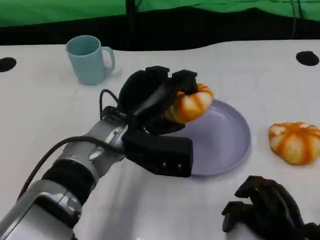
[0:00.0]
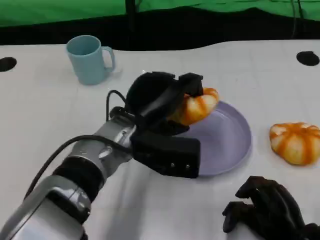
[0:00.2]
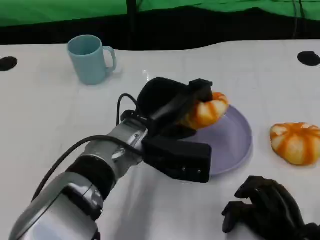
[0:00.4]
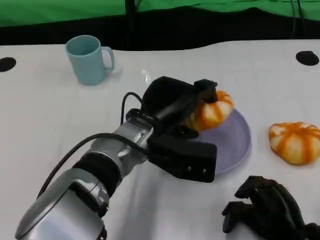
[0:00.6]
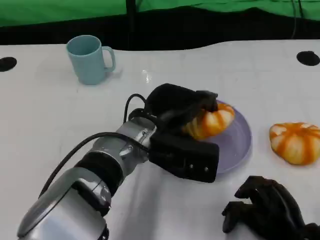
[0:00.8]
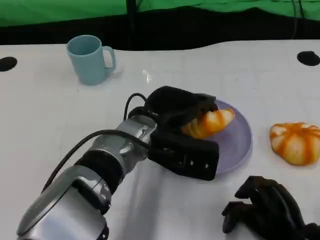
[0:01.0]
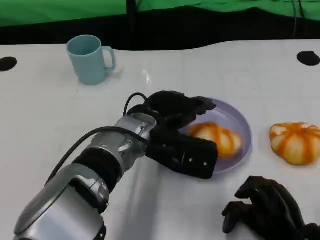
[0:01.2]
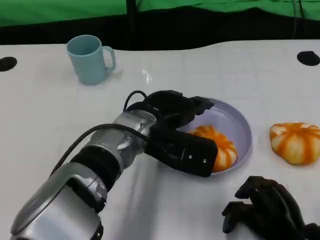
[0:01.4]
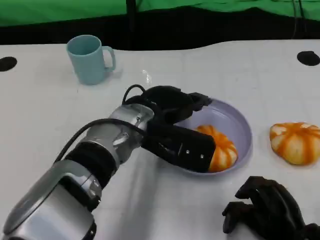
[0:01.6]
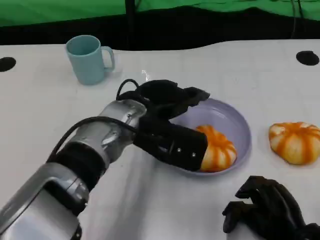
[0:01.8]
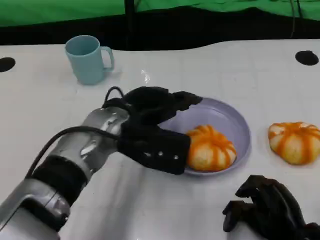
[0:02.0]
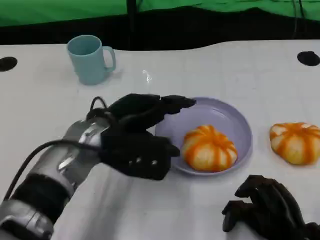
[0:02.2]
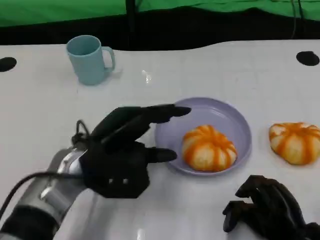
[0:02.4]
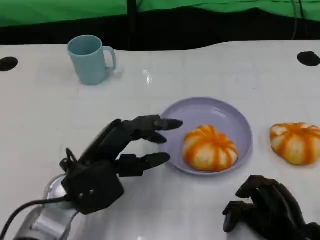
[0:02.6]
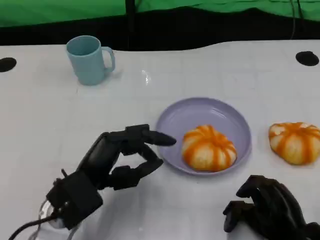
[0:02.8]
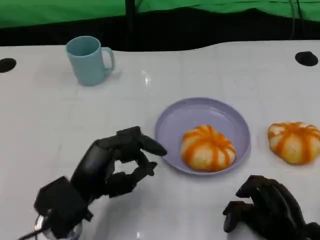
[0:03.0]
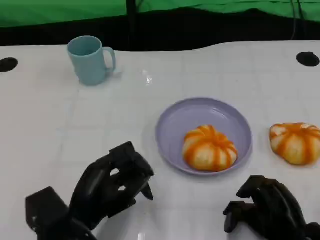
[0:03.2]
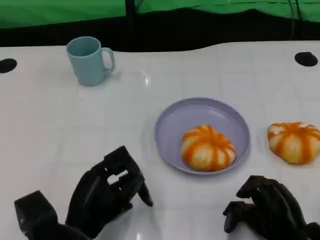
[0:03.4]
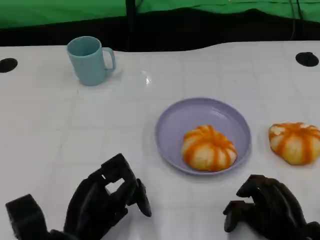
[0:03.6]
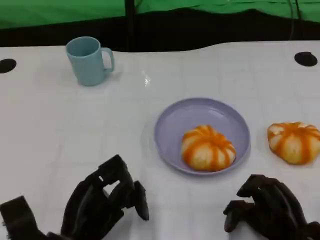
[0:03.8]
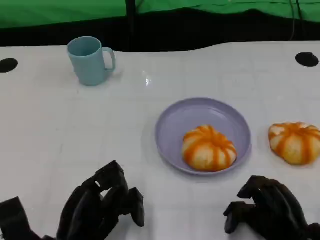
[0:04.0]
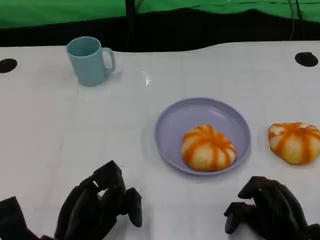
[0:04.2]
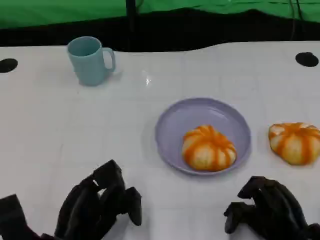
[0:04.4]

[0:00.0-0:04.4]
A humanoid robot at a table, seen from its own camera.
Task of the whole recording: Grasp the bread from the table and place it into the plate.
1.4 to 3.0 s: The left hand shifts about 15 cm to the left, backward and downward.
3.0 to 4.4 s: The left hand shifts by about 5 cm.

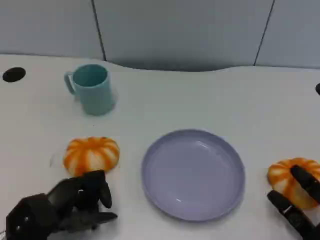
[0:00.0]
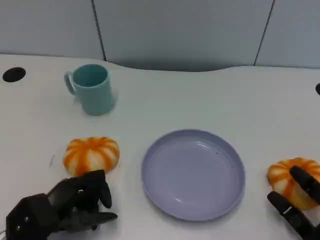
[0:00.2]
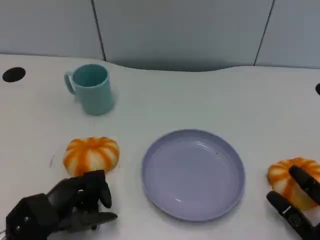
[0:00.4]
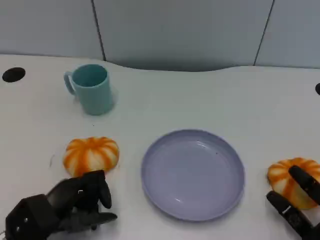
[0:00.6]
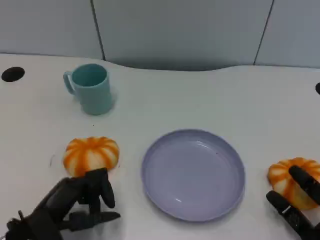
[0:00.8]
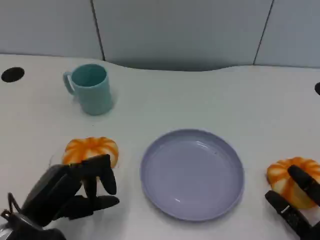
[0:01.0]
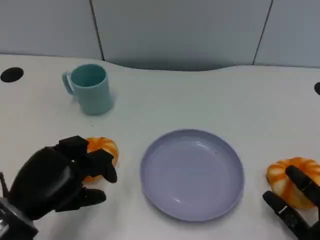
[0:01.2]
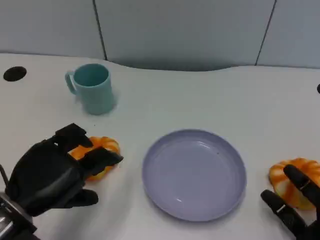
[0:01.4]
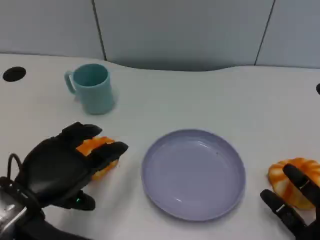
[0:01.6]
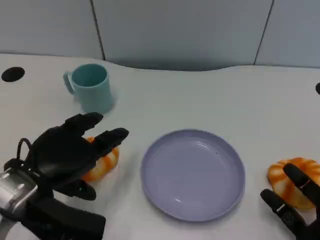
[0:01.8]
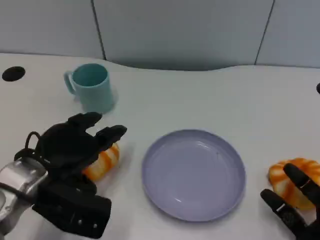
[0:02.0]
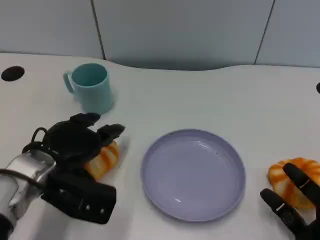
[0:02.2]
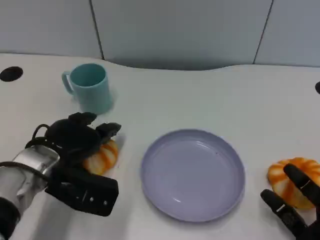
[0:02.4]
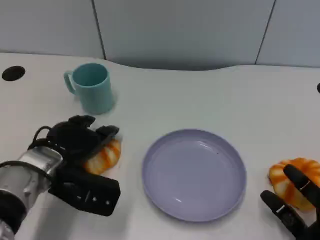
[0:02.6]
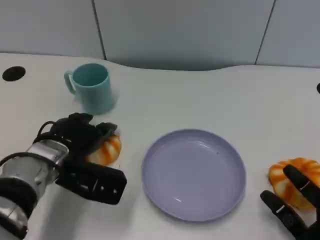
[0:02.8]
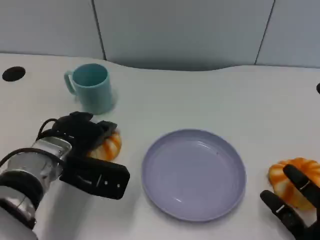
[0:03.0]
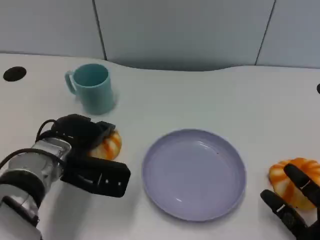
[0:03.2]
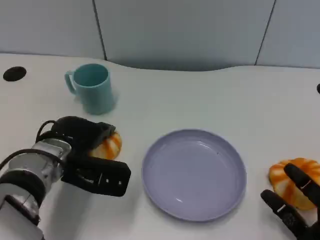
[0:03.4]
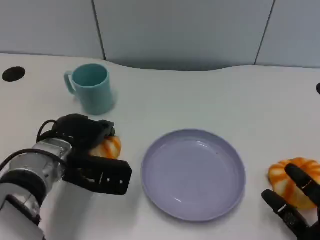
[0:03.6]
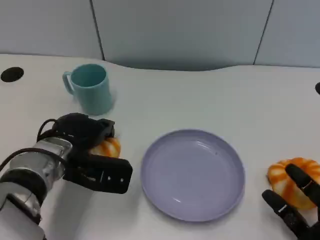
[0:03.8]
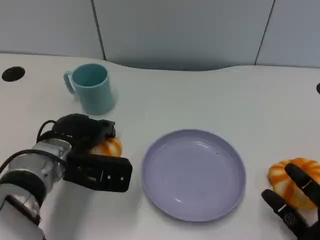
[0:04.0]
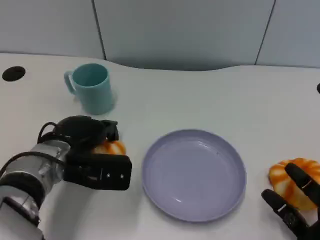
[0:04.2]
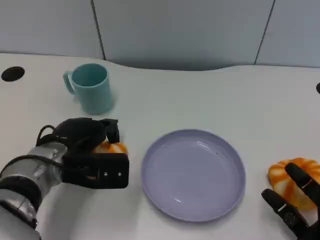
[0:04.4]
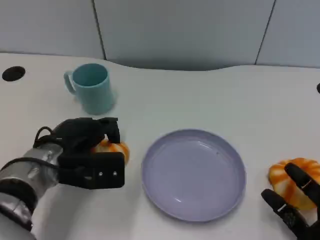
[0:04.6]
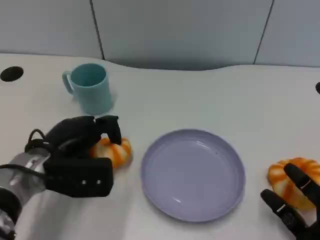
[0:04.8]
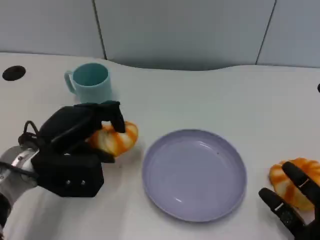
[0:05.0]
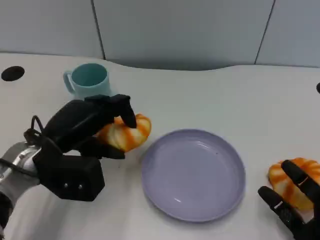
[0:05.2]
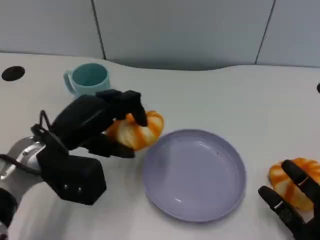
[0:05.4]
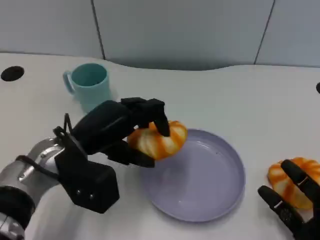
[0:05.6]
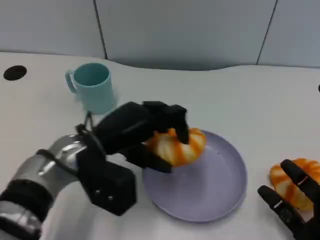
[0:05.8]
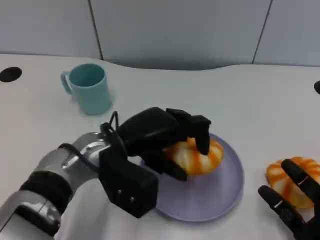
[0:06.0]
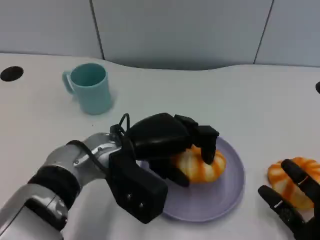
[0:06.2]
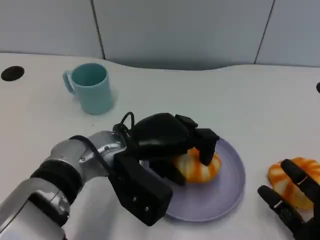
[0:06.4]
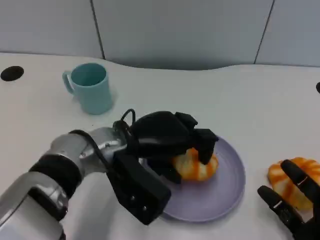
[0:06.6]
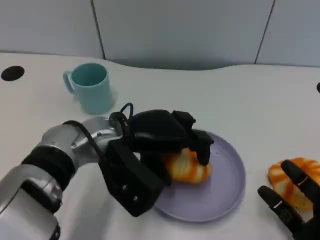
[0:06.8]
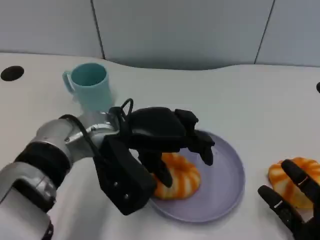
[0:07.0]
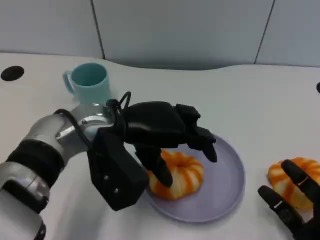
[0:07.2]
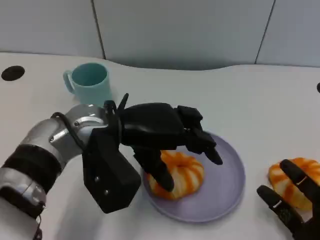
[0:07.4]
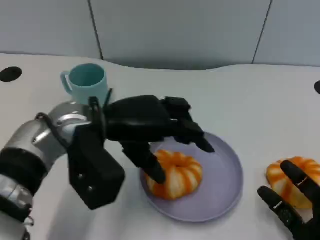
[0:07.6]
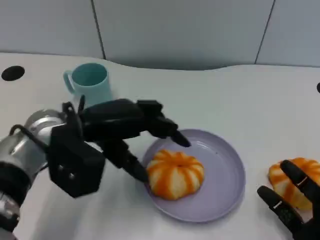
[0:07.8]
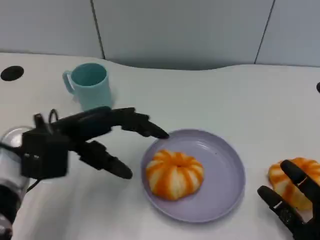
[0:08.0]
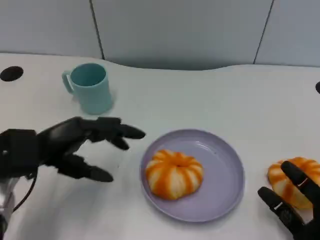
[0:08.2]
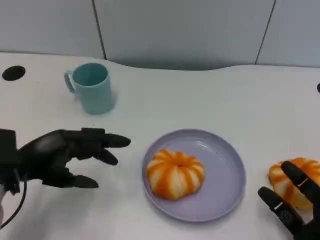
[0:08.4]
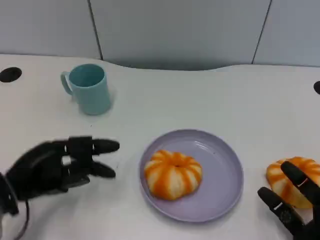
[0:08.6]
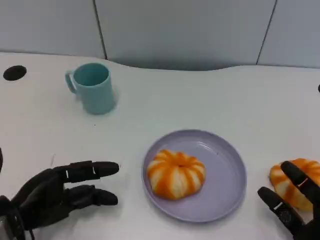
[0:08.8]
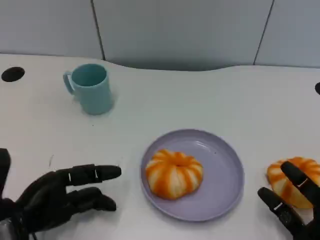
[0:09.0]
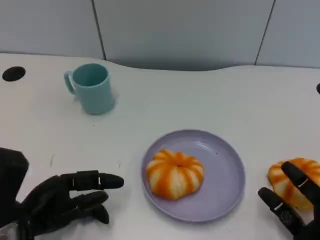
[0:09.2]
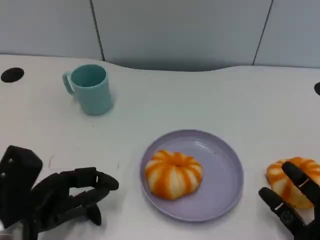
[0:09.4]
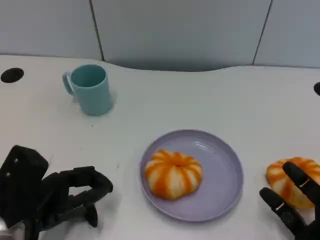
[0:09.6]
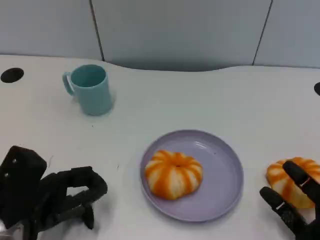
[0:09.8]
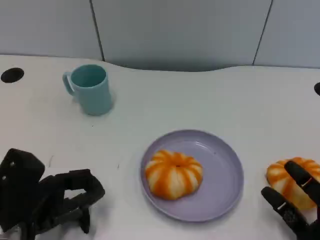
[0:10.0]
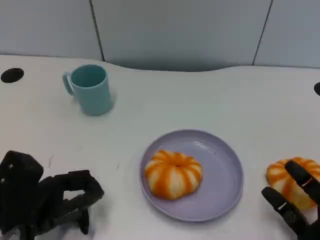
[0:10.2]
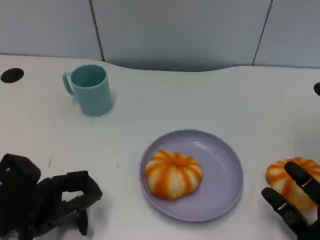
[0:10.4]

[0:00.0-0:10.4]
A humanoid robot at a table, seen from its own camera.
Task of the whole recording: Grasp the bread from the table and place it into the plate.
0.0 to 1.4 s: The left hand moves upward, roughly 10 cm.
1.4 to 3.0 s: The left hand travels forward and to the right by roughly 15 cm.
4.4 to 6.0 s: The left hand shifts roughly 10 cm to the right.
6.0 to 7.4 s: The left hand moves approximately 5 cm.
7.4 to 9.0 s: The left hand is displaced to the left, downward and backward by roughly 20 cm.

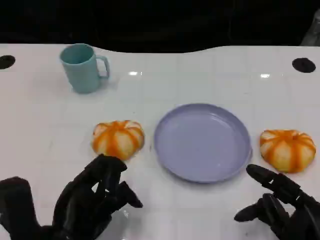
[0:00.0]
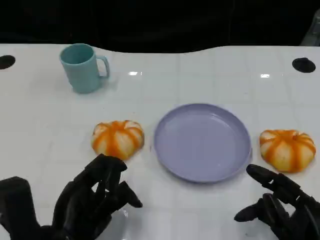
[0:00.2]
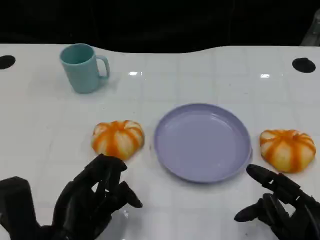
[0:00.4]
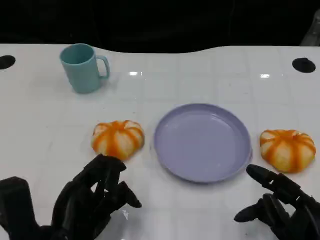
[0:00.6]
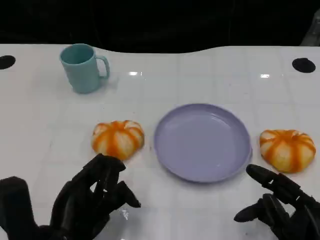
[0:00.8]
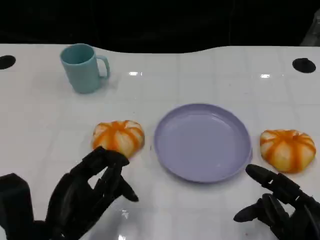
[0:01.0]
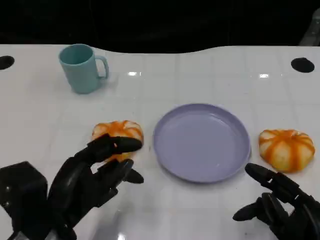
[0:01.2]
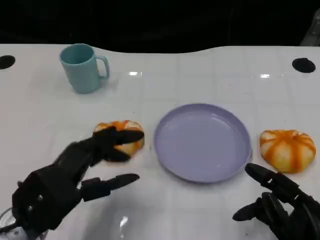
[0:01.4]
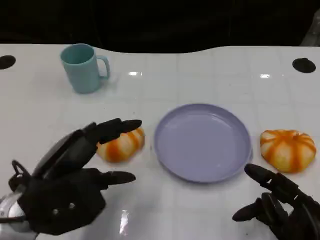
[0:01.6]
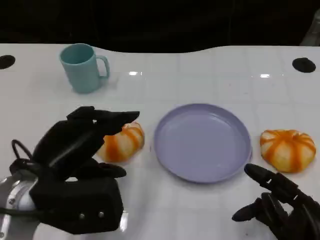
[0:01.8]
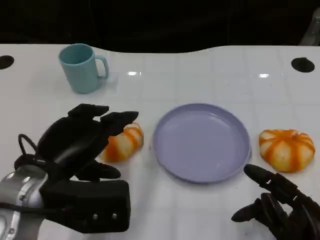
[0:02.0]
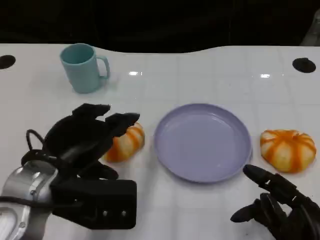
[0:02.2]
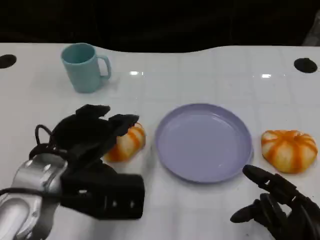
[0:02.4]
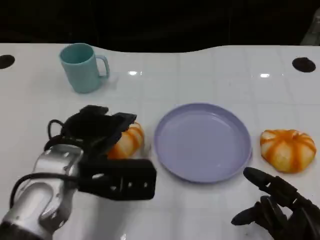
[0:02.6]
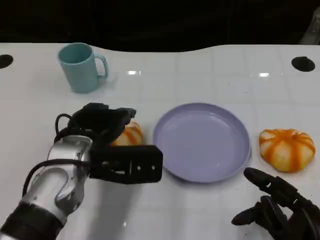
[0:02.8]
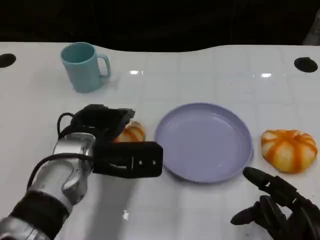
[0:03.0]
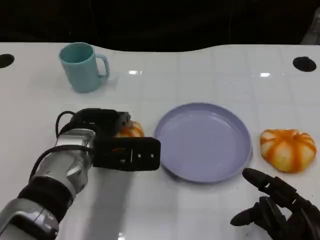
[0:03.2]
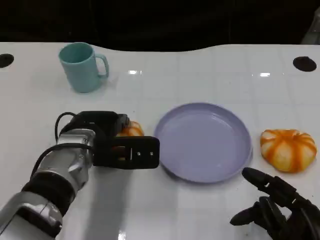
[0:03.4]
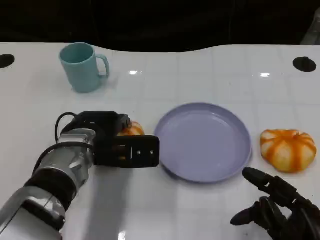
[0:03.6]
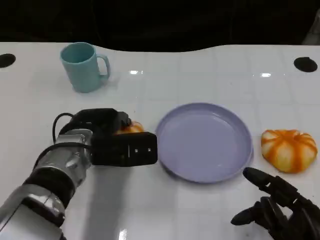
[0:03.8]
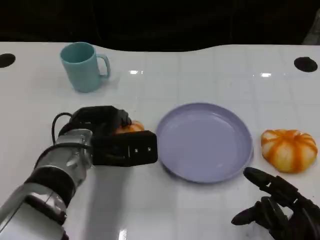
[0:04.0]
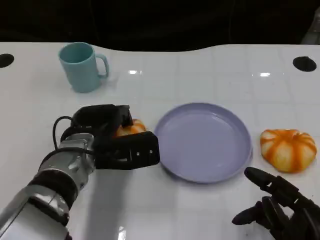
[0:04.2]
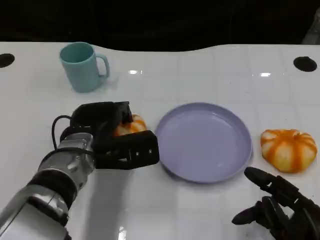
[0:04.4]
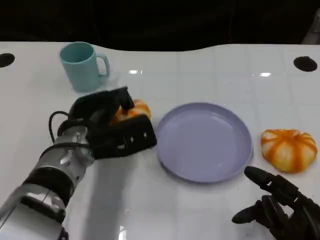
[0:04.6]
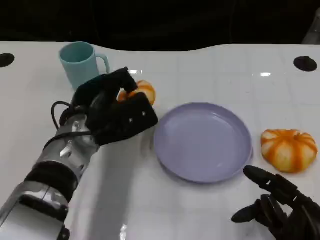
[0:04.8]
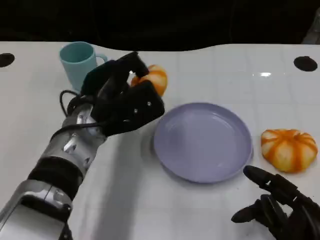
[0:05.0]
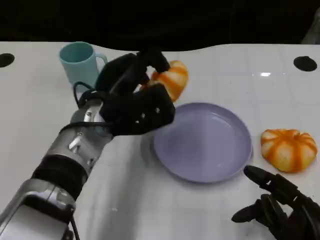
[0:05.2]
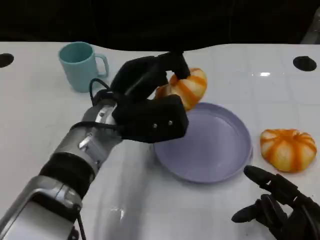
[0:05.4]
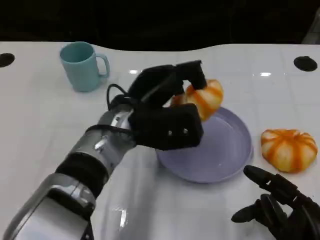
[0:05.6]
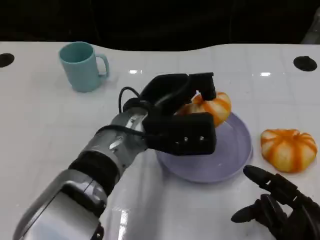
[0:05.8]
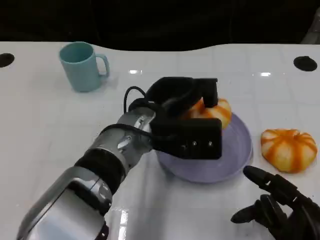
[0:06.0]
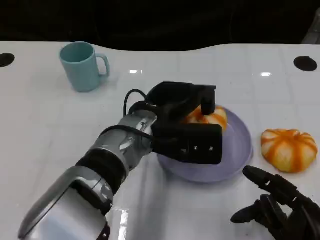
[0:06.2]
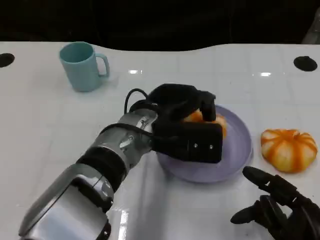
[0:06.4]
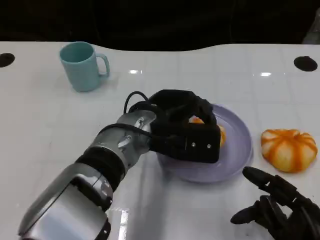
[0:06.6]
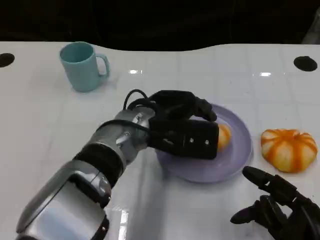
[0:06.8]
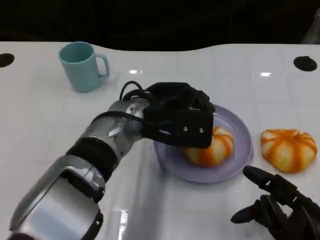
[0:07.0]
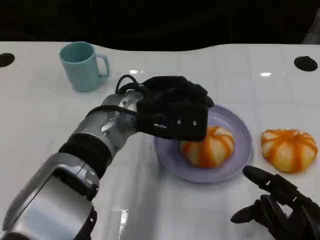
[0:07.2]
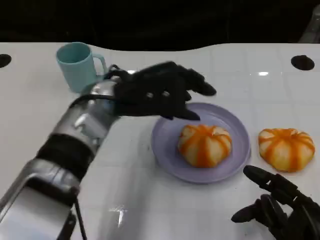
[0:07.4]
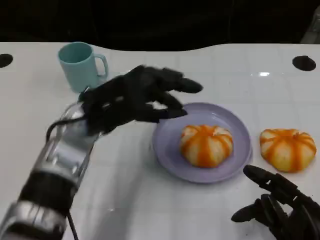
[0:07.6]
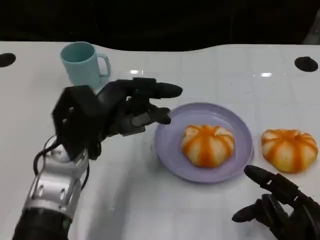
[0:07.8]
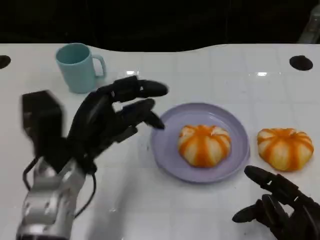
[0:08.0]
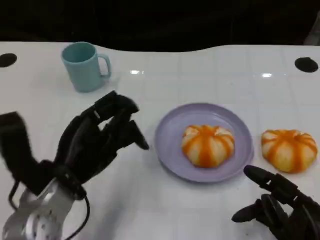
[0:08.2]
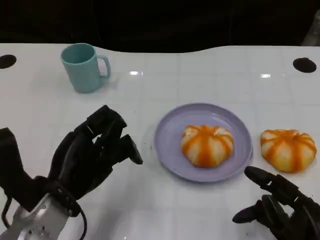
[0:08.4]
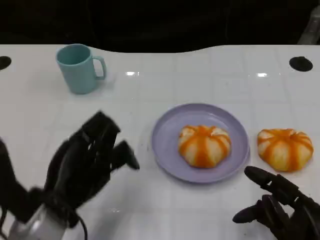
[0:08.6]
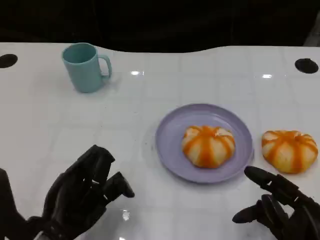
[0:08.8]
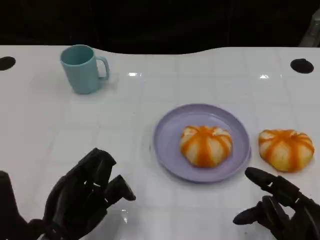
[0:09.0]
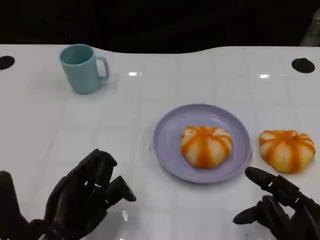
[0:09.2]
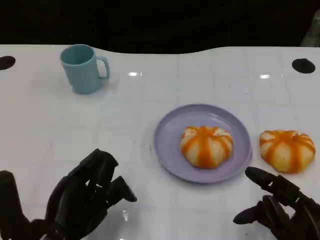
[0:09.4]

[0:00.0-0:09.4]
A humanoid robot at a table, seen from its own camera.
Task of the whole recording: Grasp the bread from the table and place it into the plate.
0.0 to 1.6 s: The left hand heads upward, covering approximately 5 cm.
1.6 to 3.2 s: The left hand goes roughly 10 cm forward and to the right.
4.8 to 6.2 s: The left hand heads to the right, covering about 10 cm.
6.2 to 7.8 s: The left hand goes approximately 10 cm to the left.
7.8 to 9.4 s: The left hand travels backward and downward by roughly 10 cm.
